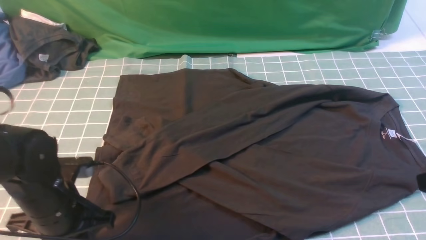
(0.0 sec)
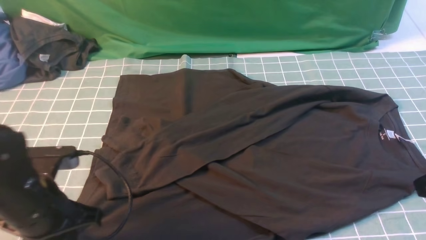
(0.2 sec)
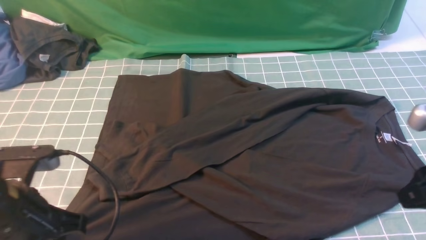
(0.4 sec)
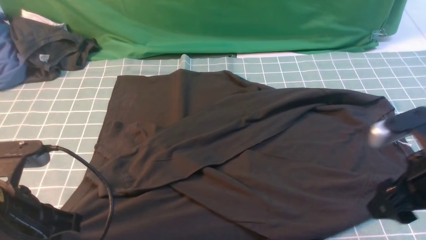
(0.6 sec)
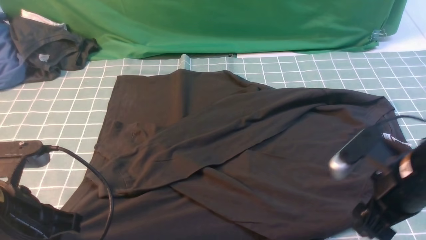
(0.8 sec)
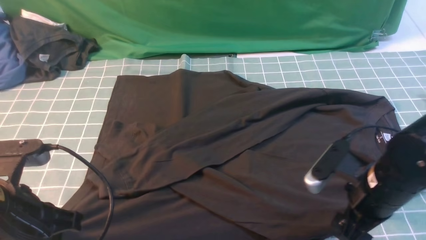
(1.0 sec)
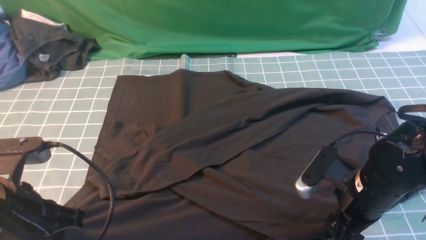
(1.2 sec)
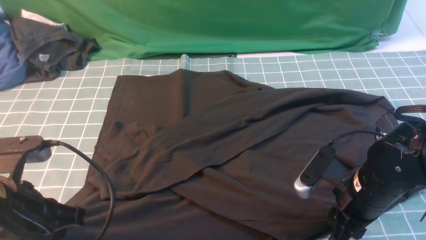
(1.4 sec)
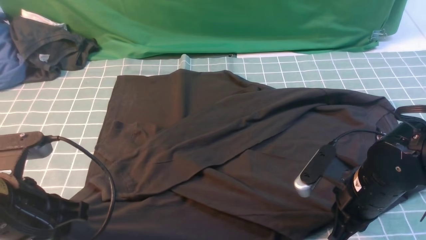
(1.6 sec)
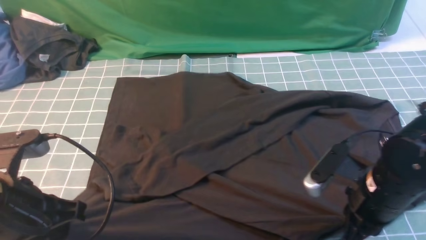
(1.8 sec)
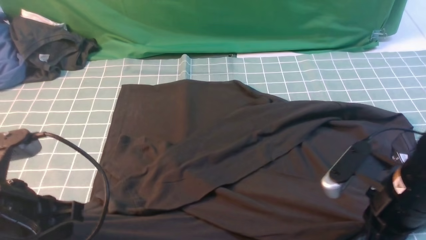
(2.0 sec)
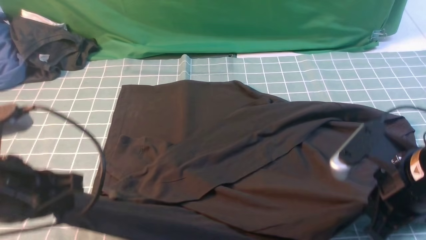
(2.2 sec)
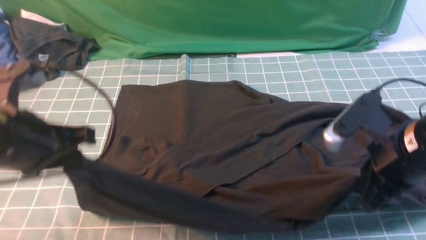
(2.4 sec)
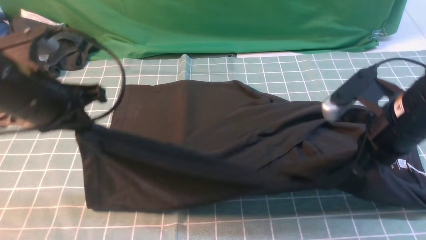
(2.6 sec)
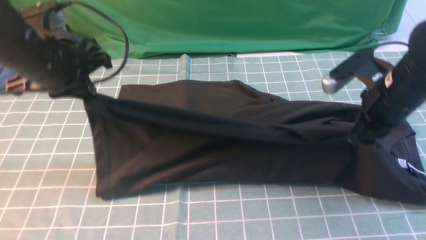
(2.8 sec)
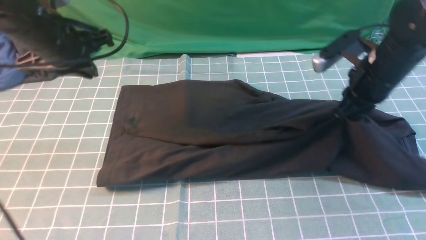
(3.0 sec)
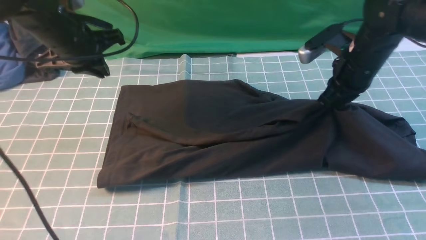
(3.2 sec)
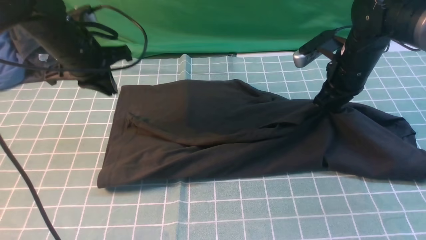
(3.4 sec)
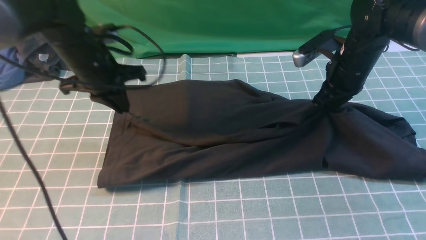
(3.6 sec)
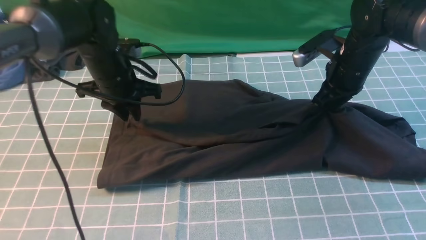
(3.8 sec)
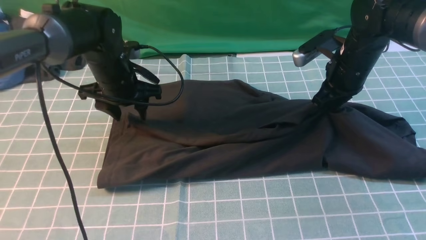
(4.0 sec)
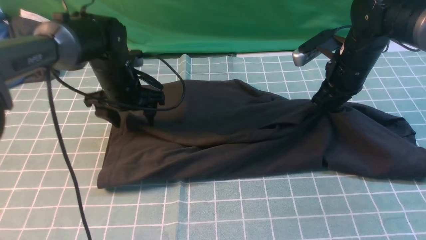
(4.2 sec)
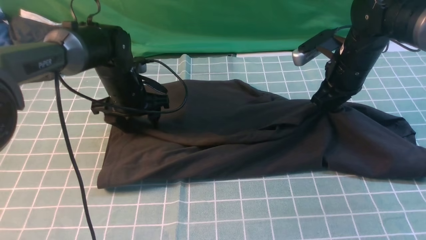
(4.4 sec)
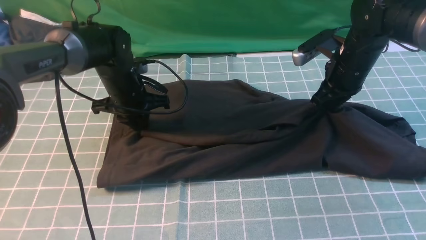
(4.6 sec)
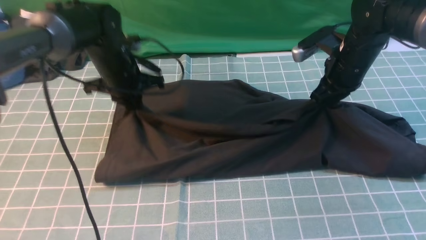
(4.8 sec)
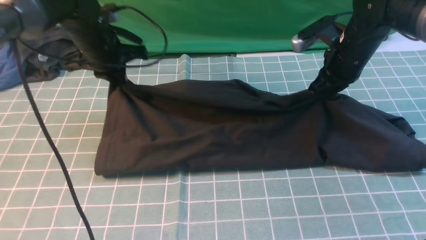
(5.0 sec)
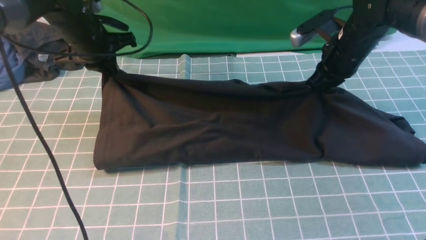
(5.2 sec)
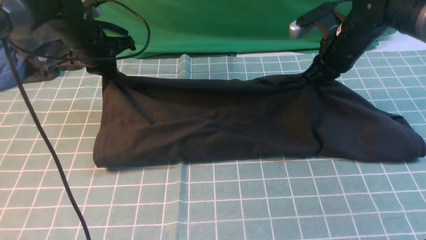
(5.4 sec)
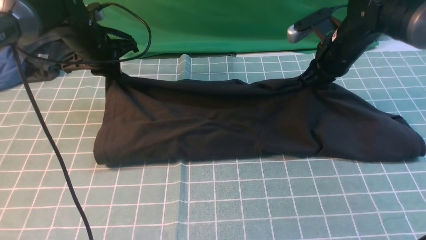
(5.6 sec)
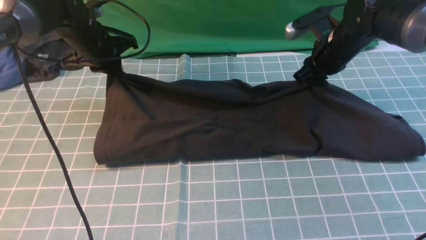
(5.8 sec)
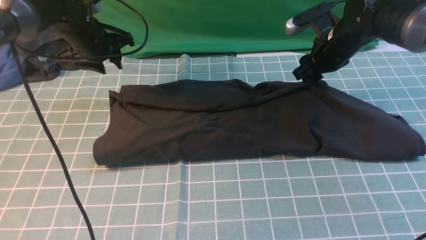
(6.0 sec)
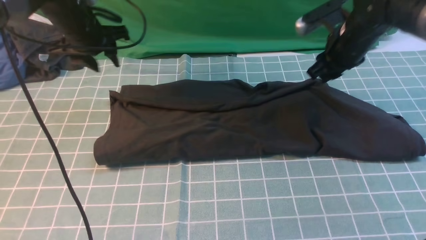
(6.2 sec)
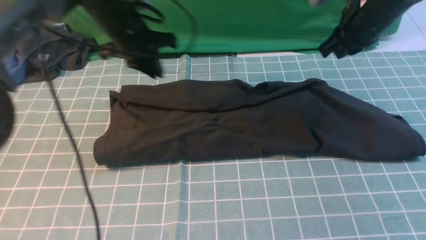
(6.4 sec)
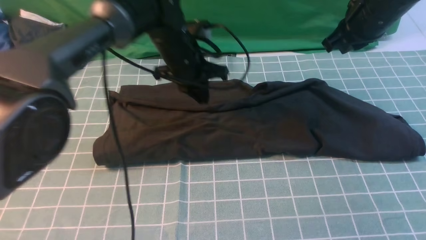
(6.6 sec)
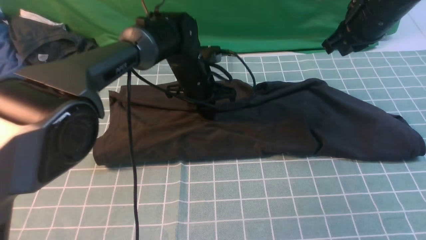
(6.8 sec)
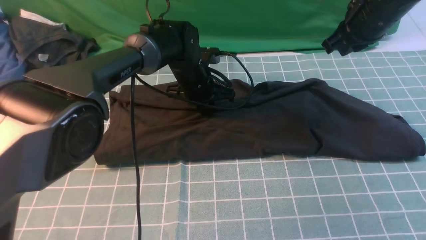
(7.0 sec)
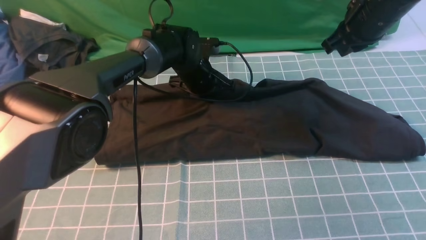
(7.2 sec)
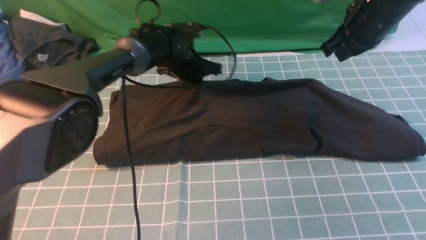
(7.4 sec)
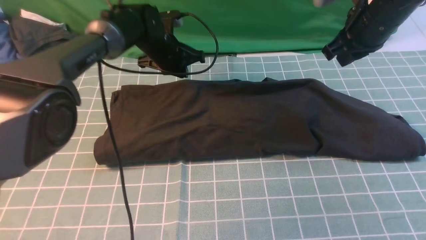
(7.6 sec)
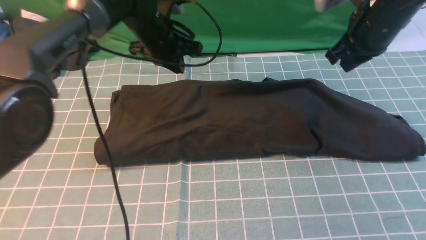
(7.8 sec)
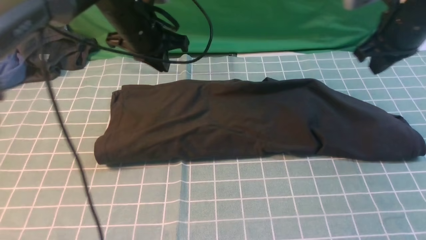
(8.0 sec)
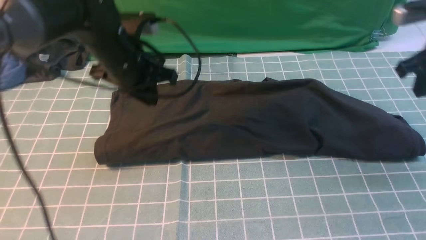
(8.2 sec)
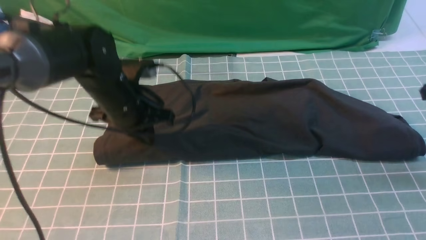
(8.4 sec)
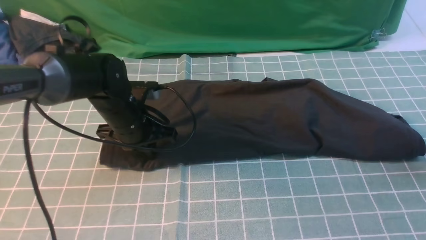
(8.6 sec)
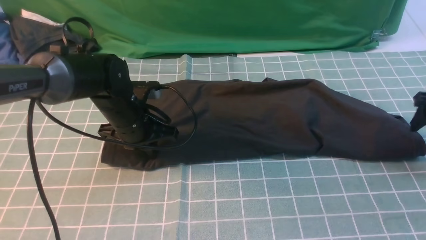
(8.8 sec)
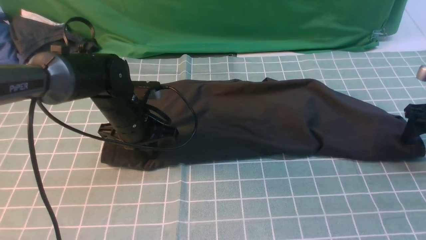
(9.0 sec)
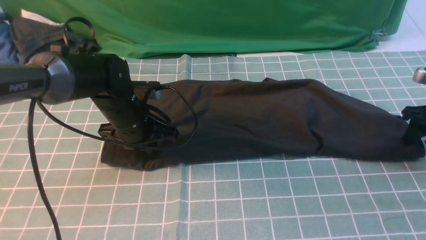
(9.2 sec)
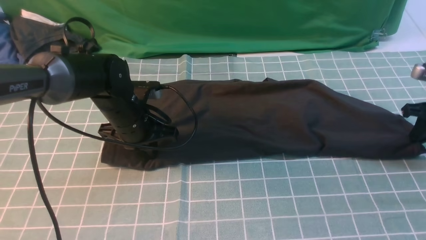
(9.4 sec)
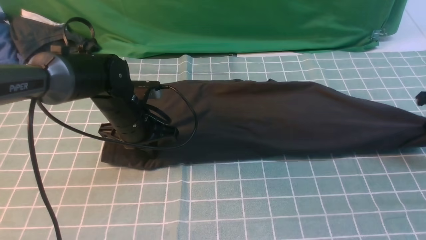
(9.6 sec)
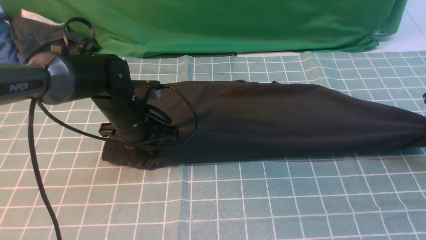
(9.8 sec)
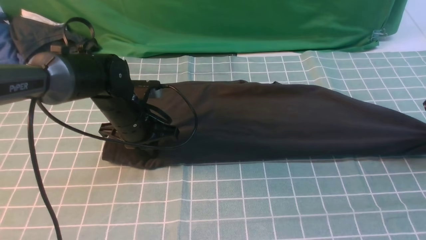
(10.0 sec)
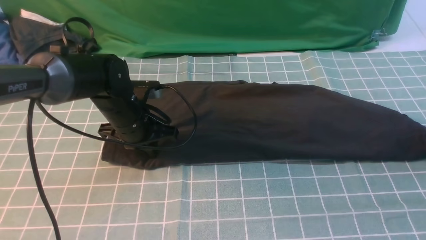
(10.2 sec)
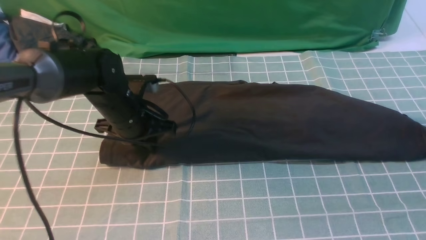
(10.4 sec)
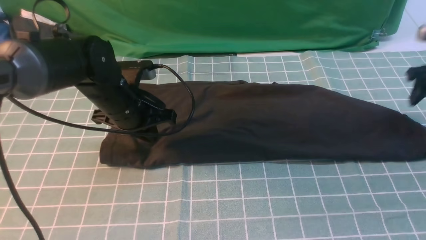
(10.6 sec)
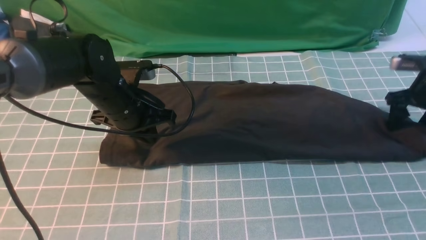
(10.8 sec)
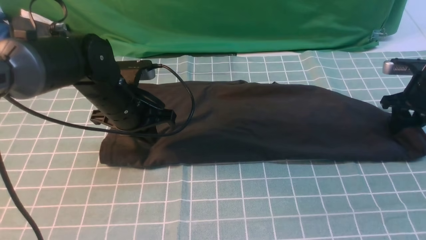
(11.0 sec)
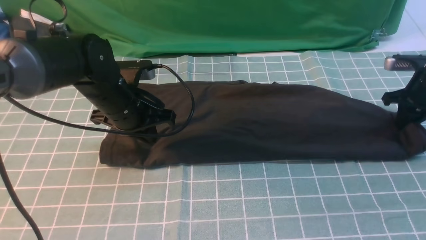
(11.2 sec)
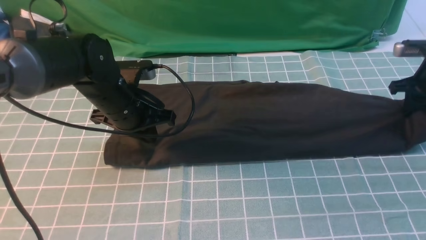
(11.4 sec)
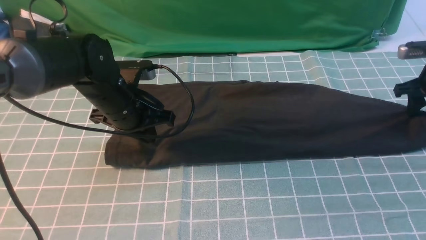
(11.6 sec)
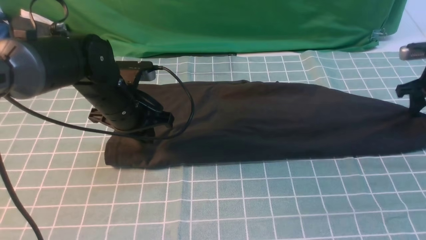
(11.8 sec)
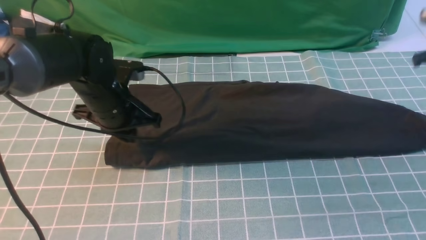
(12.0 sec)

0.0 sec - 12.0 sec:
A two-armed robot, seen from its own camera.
Step, 0.0 sec - 1.6 sec: use both arms simultaneously to clamp the lower edge of the clothing fabric.
Step, 1.8 sec - 6.4 sec: use both arms to drag the lower edge of the fabric forward and fold it over the upper edge.
0.0 sec - 1.6 sec: The right gripper moves downward, to the left and forward, about 15 cm, and opens, then closes once more, while the left gripper travels upward by approximately 10 cm.
1.6 sec - 3.0 sec: The right gripper goes approximately 15 cm forward and upward, while the left gripper heads forward, covering about 20 cm.
3.0 sec - 4.4 sec: The left gripper heads downward, to the right and forward, covering approximately 15 cm, and opens its fingers, while the right gripper goes some 5 cm forward.
4.4 sec - 6.0 sec: The left gripper goes about 10 cm upward and to the left, and closes, then opens again. Meanwhile the right gripper opens up.
6.0 sec - 7.6 sec: The right gripper shifts some 10 cm upward and backward, and closes its fingers. Meanwhile the left gripper moves to the right, some 10 cm, and closes up.
7.6 sec - 9.0 sec: The right gripper shifts about 20 cm to the right and downward, and opens its fingers. The left gripper goes approximately 15 cm backward.
9.0 sec - 10.4 sec: The right gripper changes place by some 5 cm, and closes and opens again.
10.4 sec - 12.0 sec: The right gripper shifts approximately 5 cm to the left, moves some 5 cm downward and comes back, and closes.

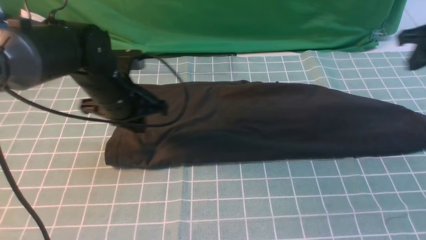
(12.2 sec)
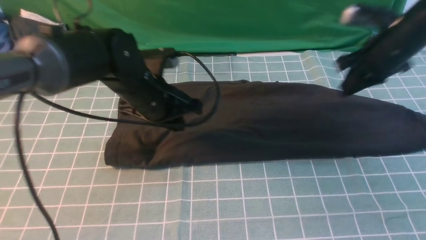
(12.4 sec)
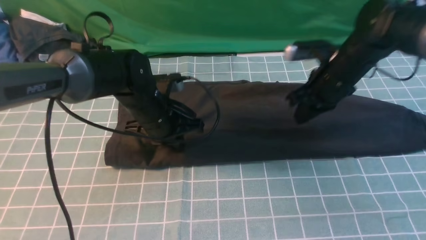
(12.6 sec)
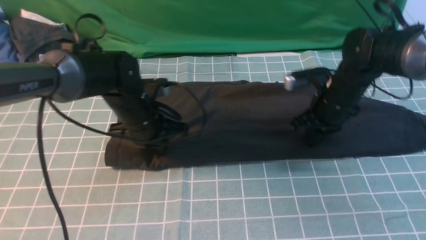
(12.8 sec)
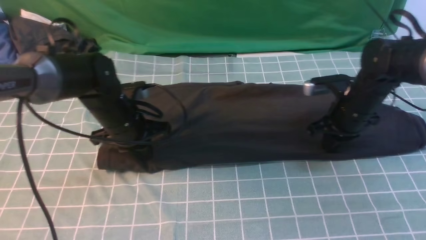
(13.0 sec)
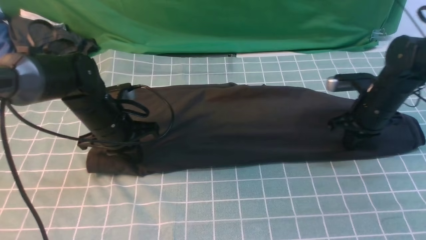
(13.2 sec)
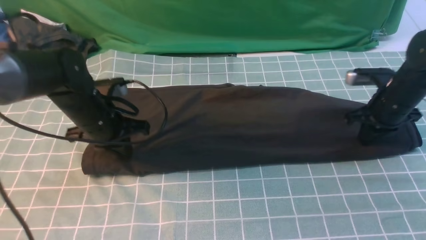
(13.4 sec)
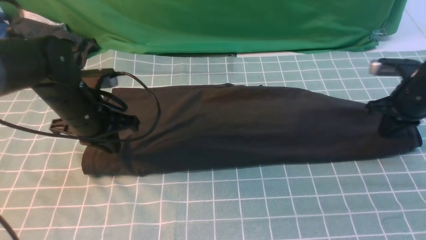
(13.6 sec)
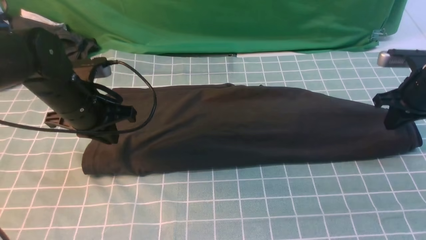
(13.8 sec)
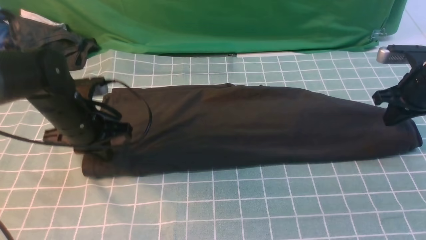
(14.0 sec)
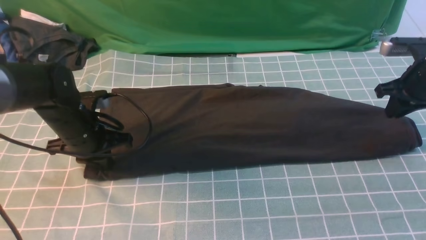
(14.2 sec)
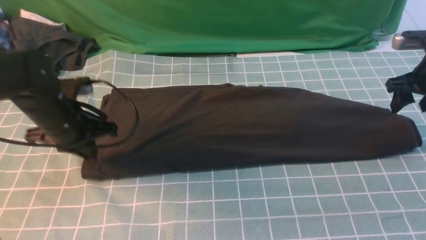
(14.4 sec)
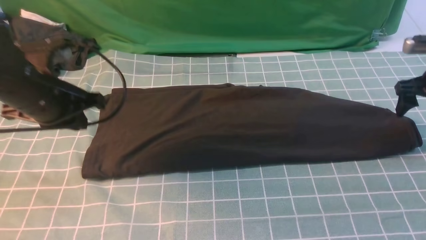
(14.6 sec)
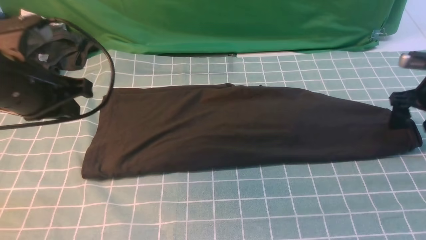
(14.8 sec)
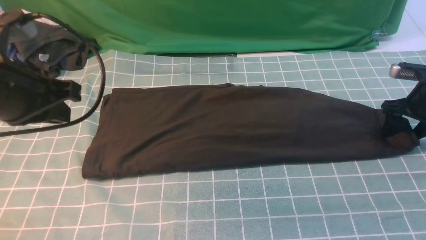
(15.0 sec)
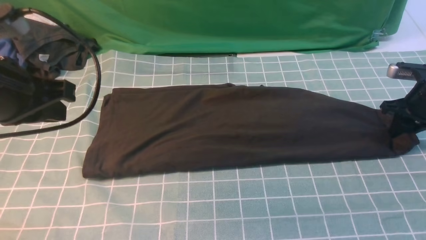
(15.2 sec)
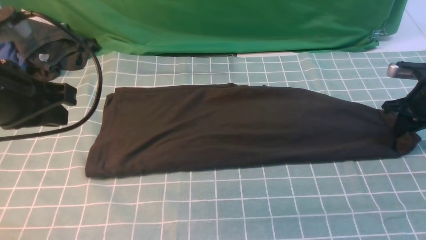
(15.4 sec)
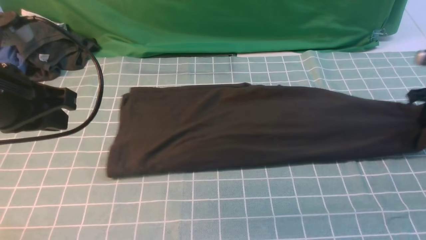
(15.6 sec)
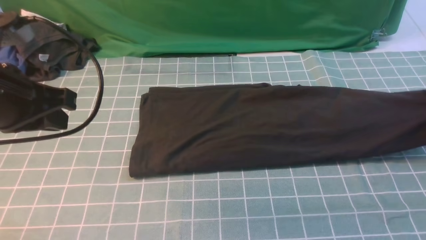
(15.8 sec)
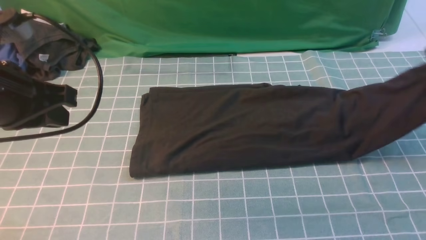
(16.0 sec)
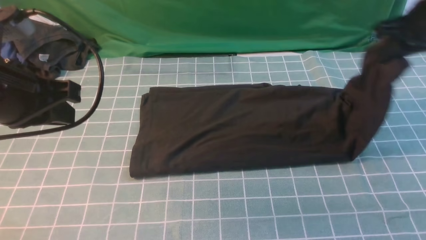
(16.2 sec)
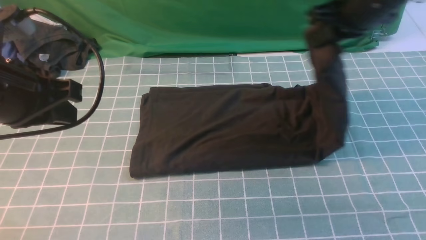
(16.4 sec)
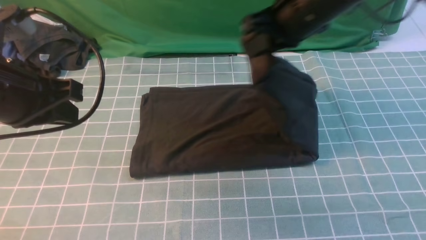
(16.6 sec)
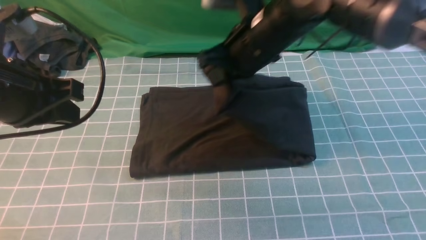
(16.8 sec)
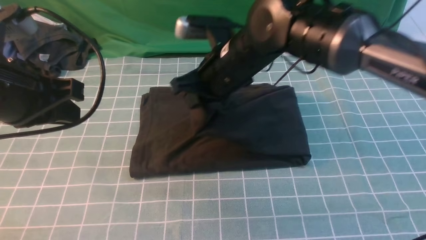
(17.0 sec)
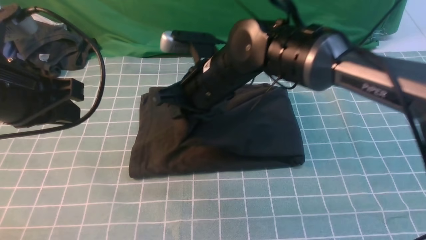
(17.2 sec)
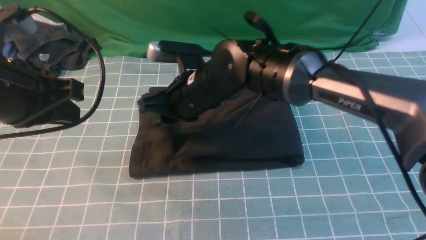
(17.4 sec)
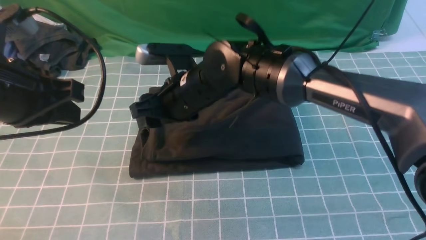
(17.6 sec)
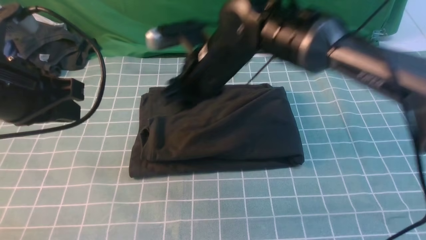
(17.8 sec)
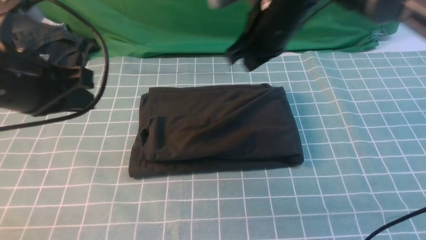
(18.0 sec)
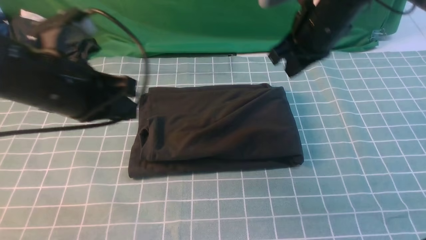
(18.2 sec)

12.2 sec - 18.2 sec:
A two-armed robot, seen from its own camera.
Step, 12.2 sec - 15.2 sec: use the right arm to clamp the right edge of the fabric.
Step, 15.4 sec - 17.8 sec: use the right arm to drag the right edge of the fabric to the left and folds it over the left edge.
12.2 sec - 13.8 sec: The left gripper goes roughly 5 cm to the left. The right gripper moves downward, roughly 5 cm, and reaches roughly 10 cm to the left, then returns.
13.8 sec - 15.2 sec: The right gripper ends up roughly 5 cm from where it was, and opens up. Meanwhile the left gripper goes about 15 cm upward and backward.
15.2 sec - 16.6 sec: The right gripper goes approximately 35 cm to the left and upward.
16.6 sec - 18.2 sec: The right gripper goes to the left and returns, about 15 cm each way, and opens, then closes once more. The left gripper is displaced to the right by about 5 cm.
